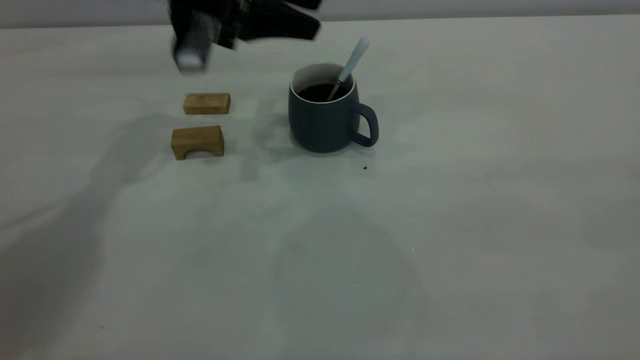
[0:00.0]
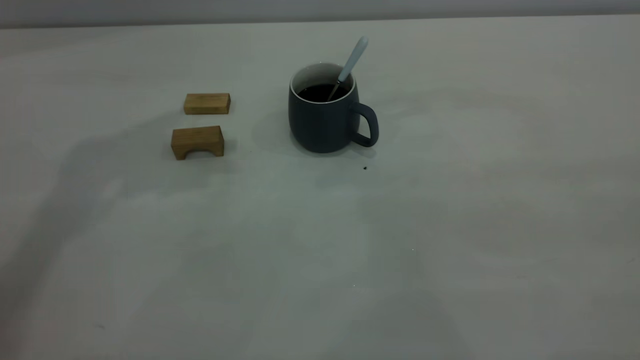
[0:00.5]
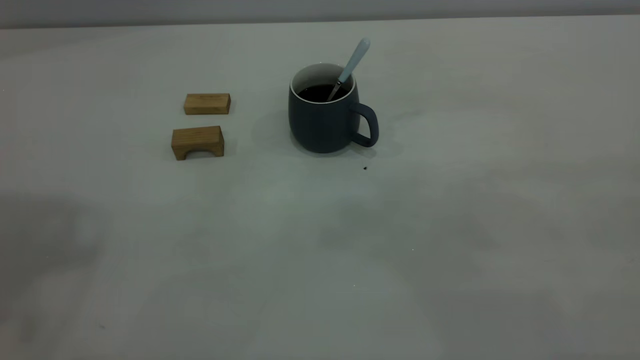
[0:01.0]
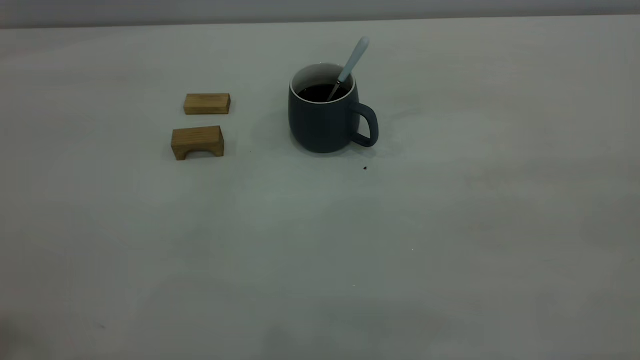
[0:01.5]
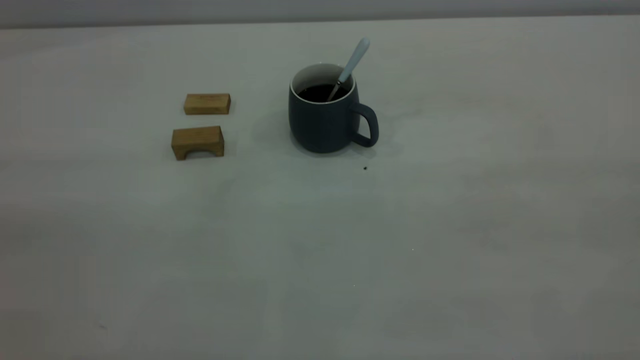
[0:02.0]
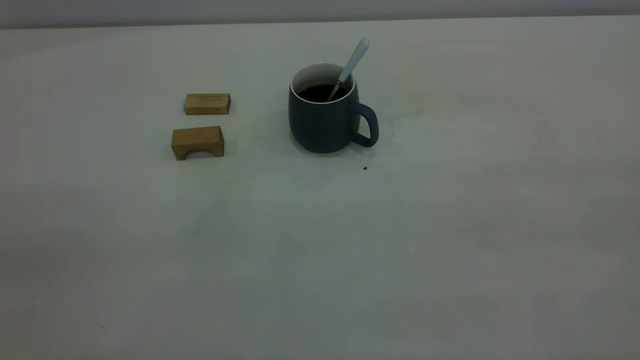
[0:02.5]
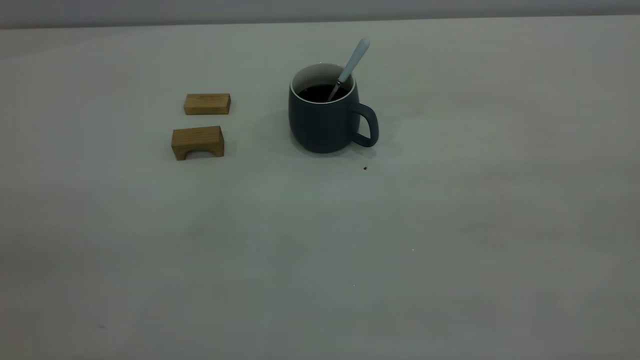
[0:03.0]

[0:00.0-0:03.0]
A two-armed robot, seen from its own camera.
0:00.0 to 0:01.5: The left gripper is displaced backward, upward and to the left by some 40 cm.

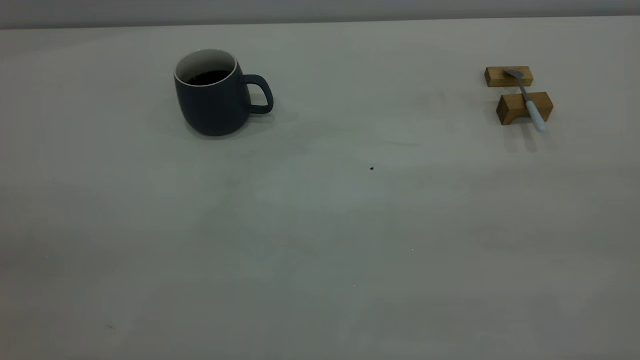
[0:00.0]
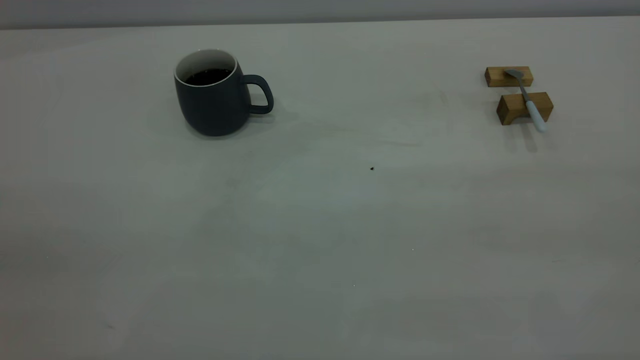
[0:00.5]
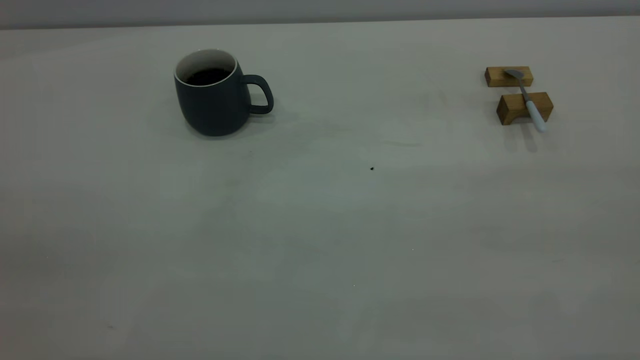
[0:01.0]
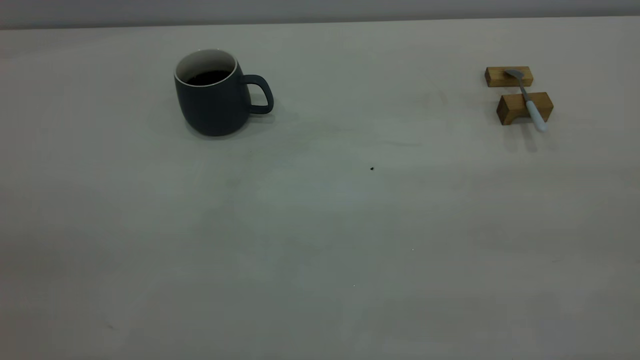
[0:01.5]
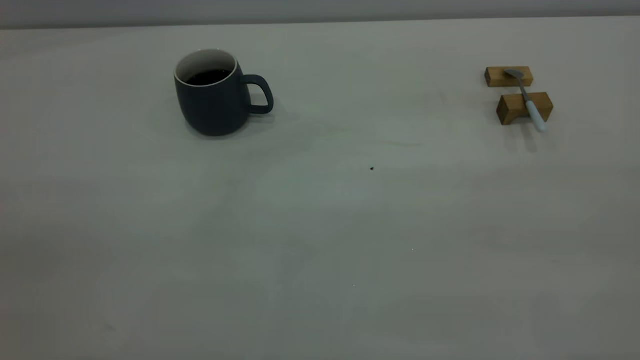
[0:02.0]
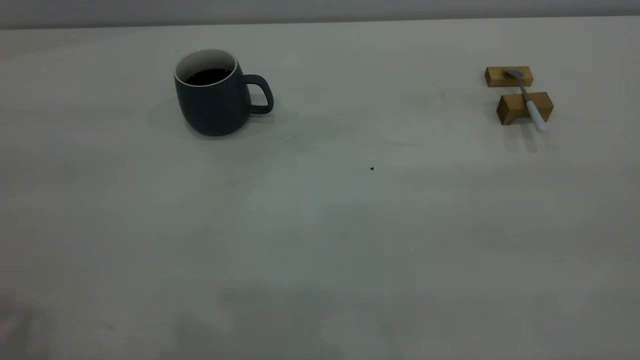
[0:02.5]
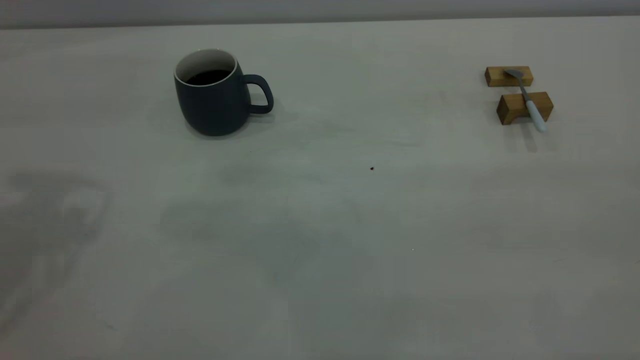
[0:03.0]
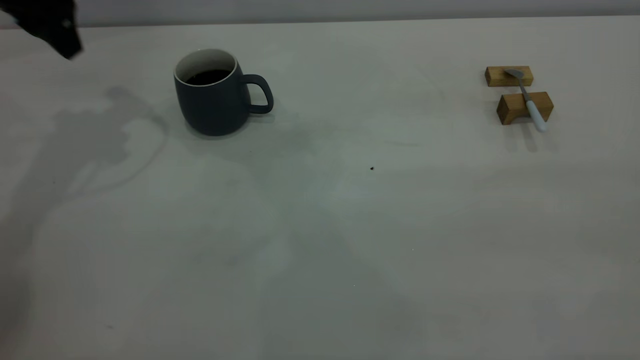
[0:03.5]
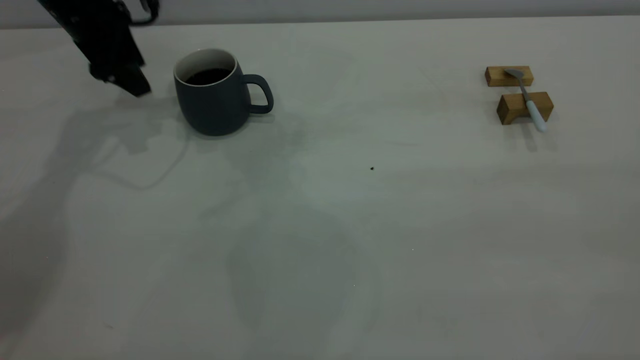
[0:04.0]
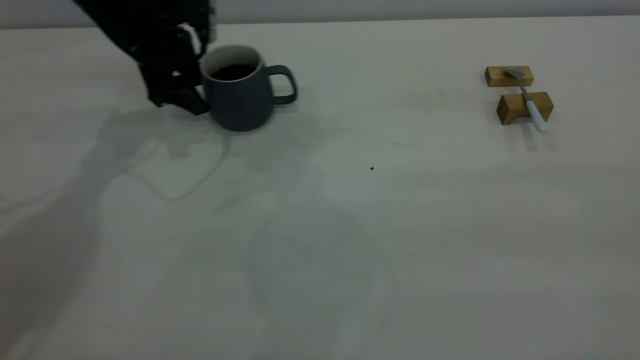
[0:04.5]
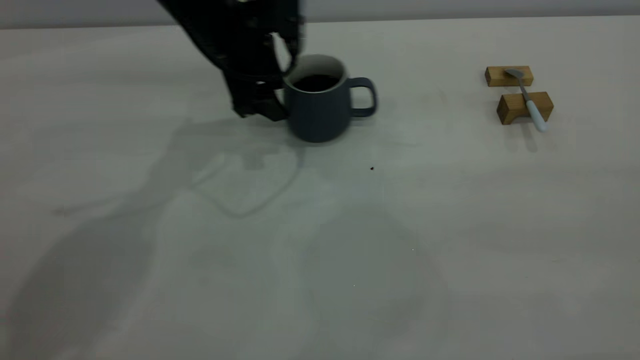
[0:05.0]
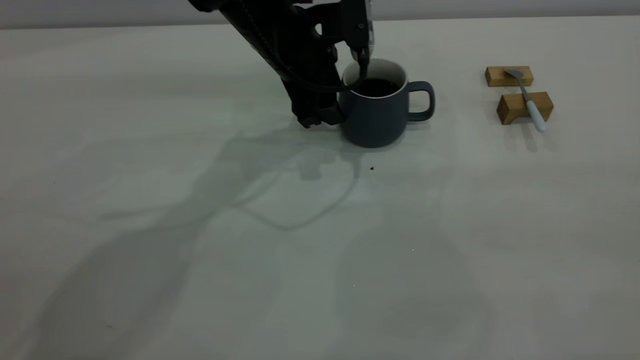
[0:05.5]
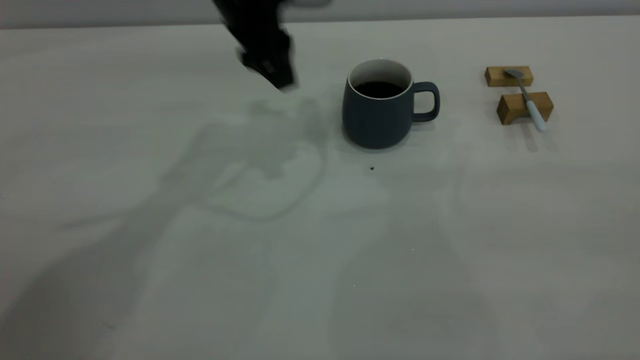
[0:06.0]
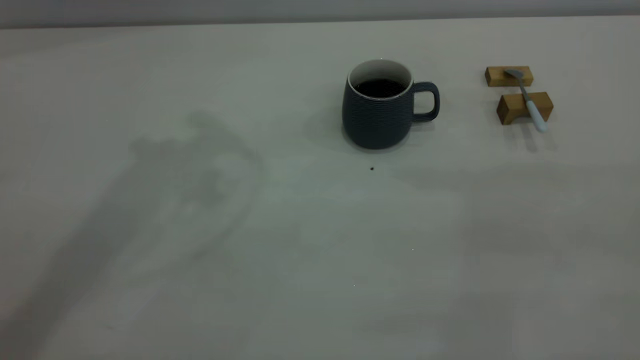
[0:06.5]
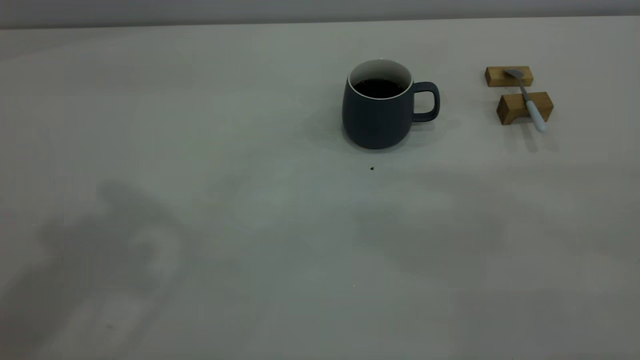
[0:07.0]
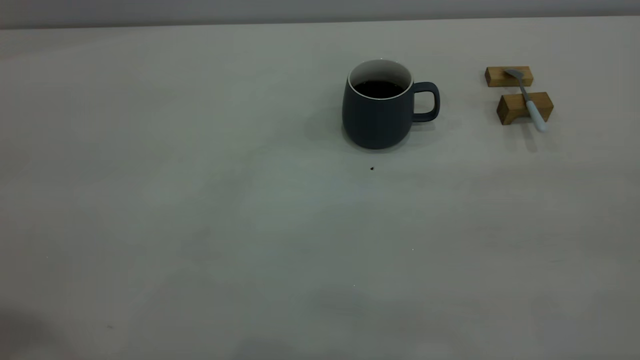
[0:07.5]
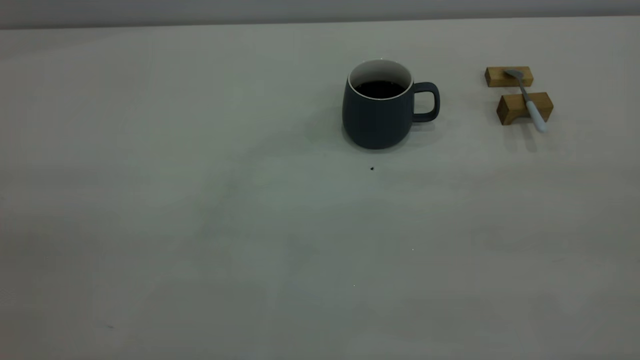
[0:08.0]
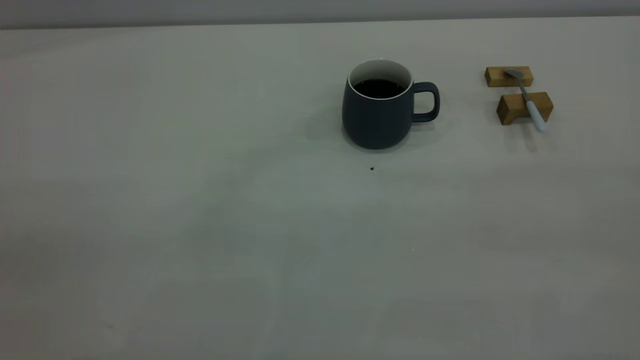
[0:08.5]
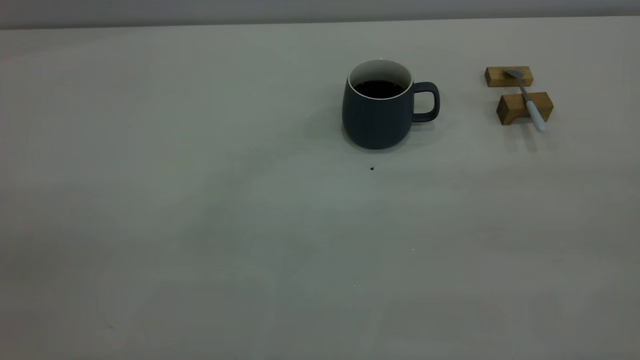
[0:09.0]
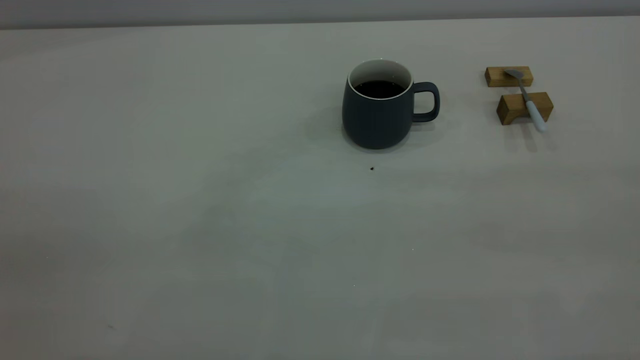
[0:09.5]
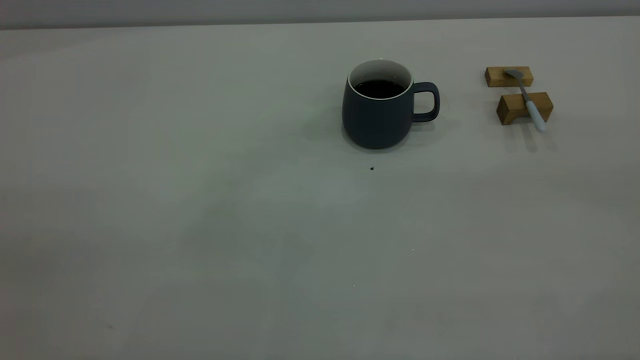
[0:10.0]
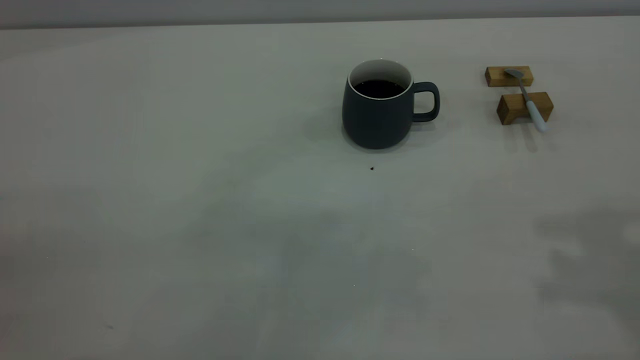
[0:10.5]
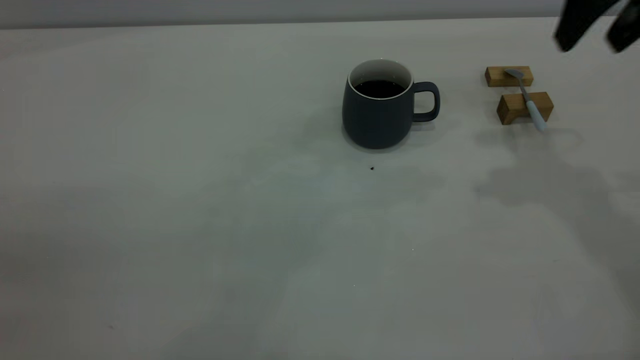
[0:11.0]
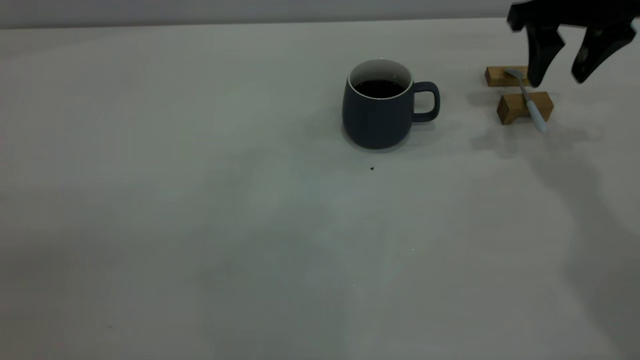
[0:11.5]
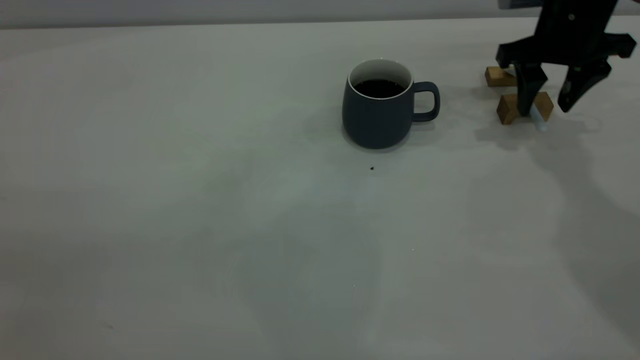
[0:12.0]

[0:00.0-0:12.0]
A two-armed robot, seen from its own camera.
Step, 0:00.0 to 0:05.5: Move the cup with coffee to the center of view.
0:02.0 to 0:04.0: The left gripper travels forward and downward by about 50 cm.
0:04.0 to 0:06.0: The left gripper heads to the right, covering about 20 cm.
0:06.0 to 0:08.0: The left gripper heads backward and to the left, covering approximately 50 cm.
0:10.0 to 0:12.0: The right gripper travels forward and downward by some 50 cm.

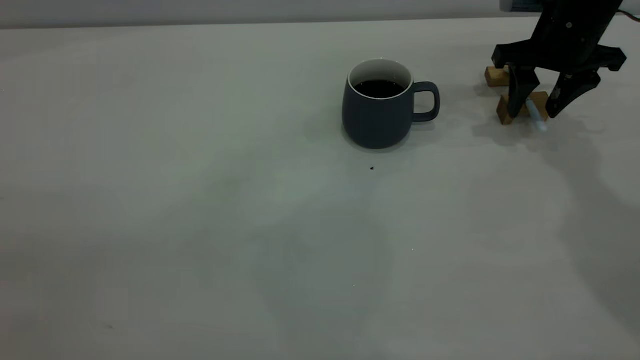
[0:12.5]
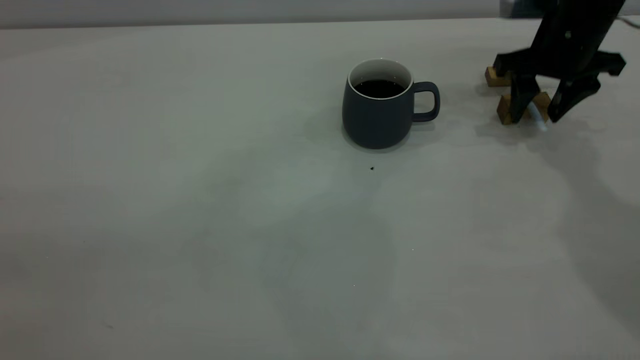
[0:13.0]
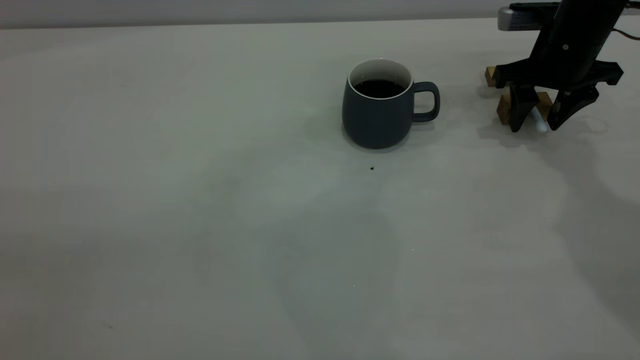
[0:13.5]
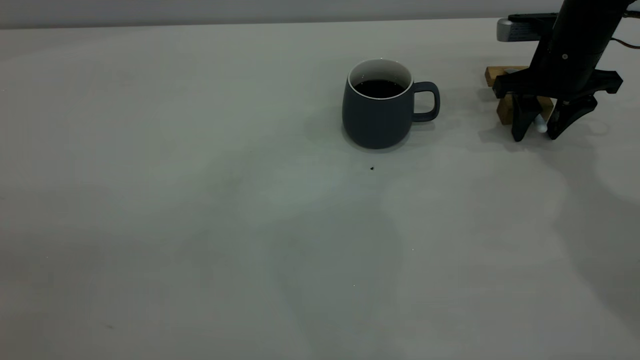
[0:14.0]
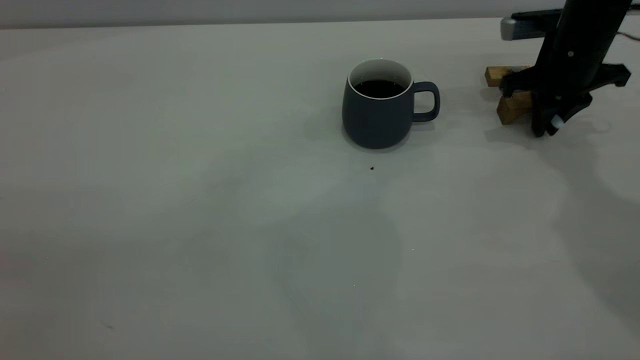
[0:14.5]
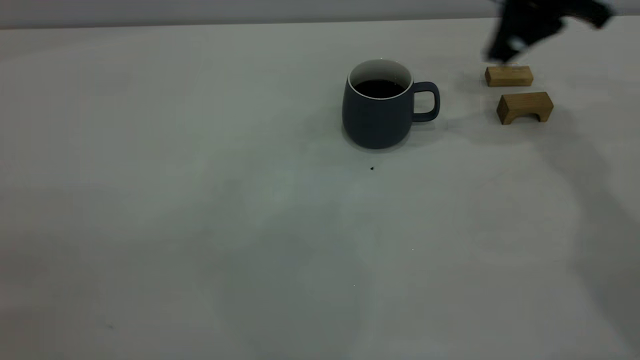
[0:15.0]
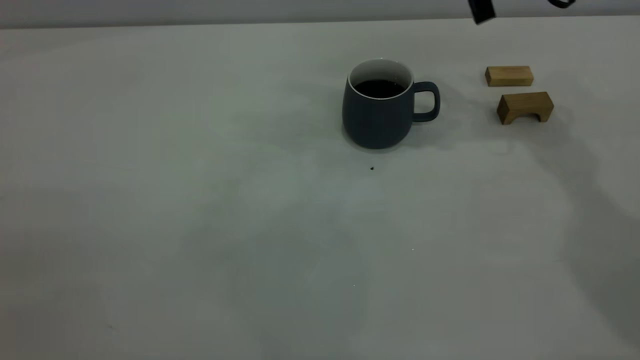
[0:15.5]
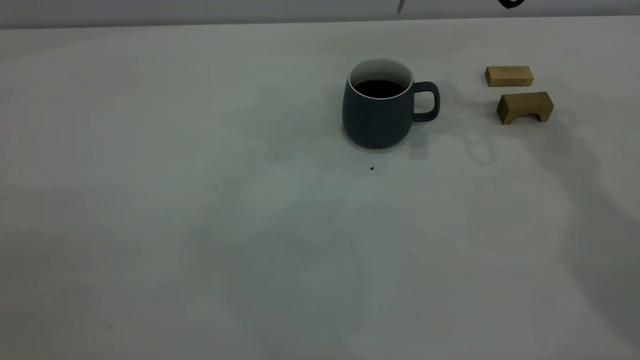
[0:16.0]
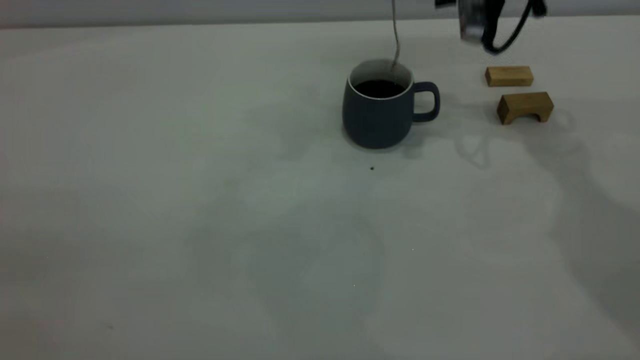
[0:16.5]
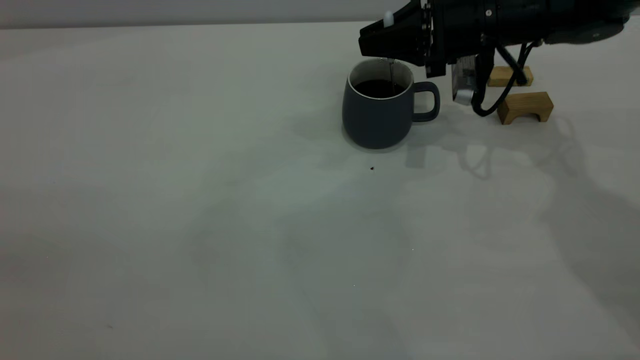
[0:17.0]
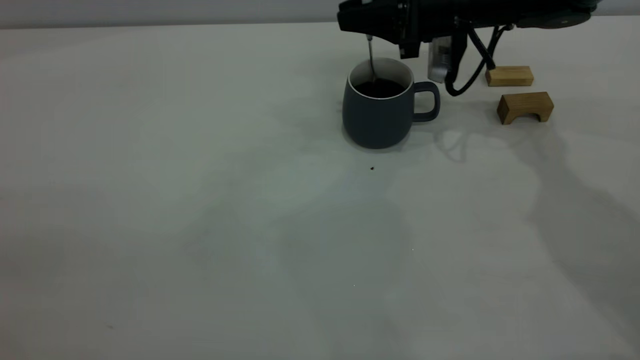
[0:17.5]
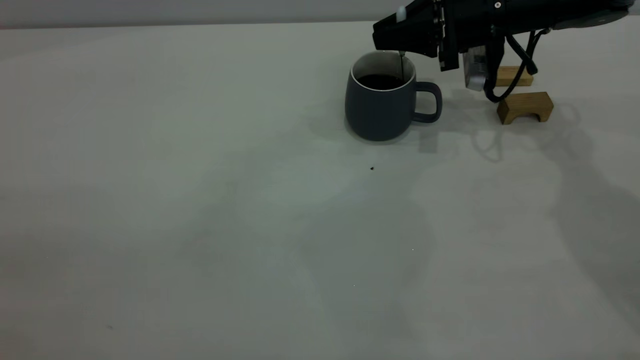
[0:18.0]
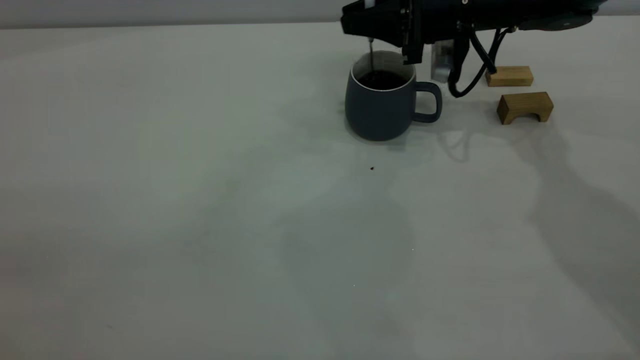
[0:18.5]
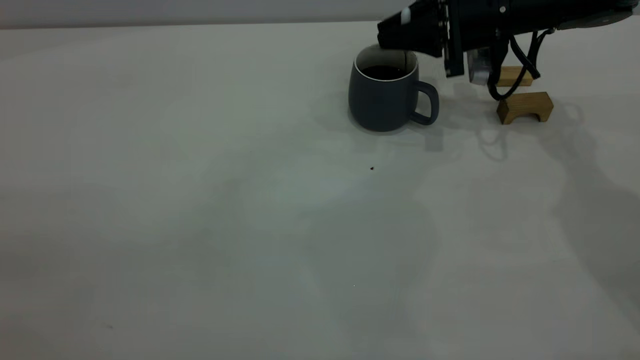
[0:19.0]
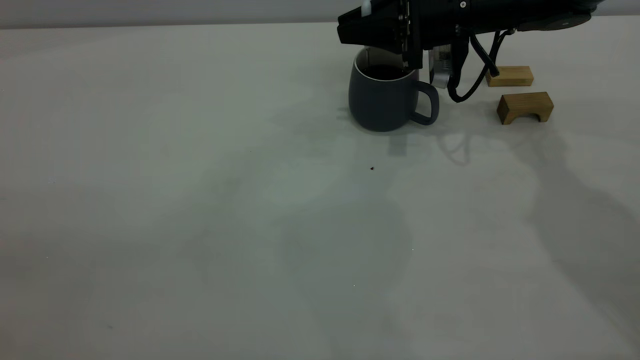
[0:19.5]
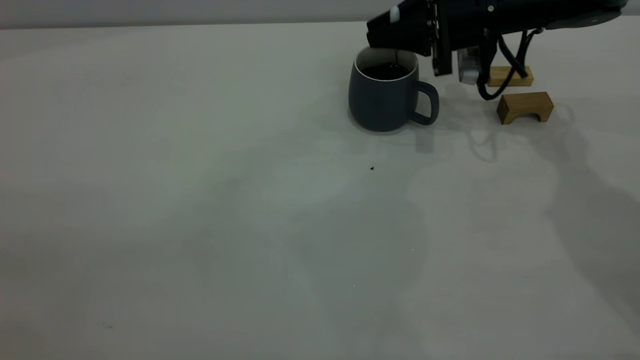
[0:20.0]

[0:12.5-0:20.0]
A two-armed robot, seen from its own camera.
Step, 0:12.5 to 0:14.5: Pick up the spoon.
0:12.5 to 0:14.5: The right gripper closes.
0:14.5 to 0:16.5: The right gripper heads to the left and upward, covering about 10 cm.
0:16.5 to 0:18.0: The right gripper is displaced downward by about 5 cm.
0:18.0 to 0:20.0: The grippers make only small movements.
